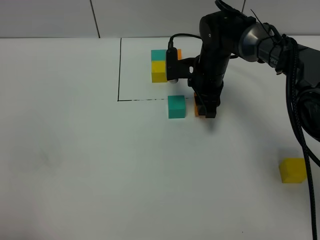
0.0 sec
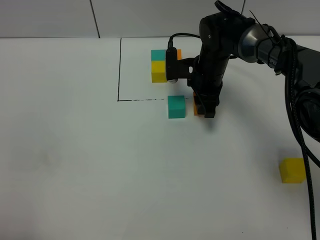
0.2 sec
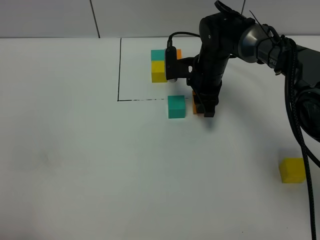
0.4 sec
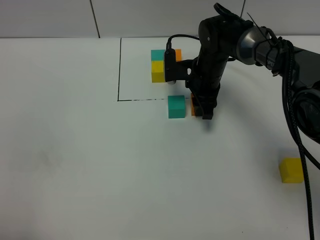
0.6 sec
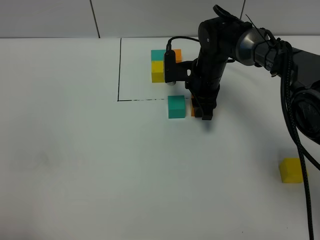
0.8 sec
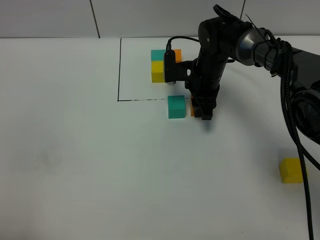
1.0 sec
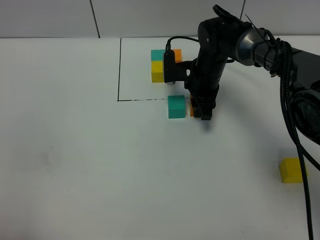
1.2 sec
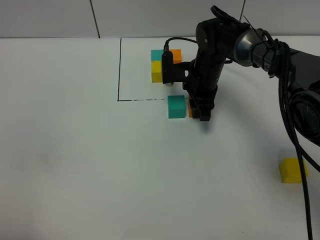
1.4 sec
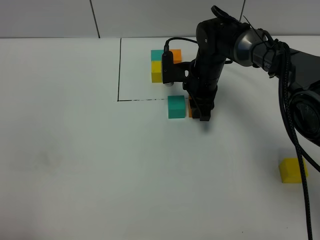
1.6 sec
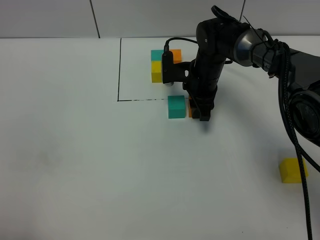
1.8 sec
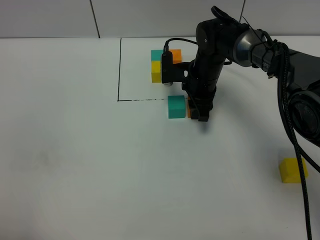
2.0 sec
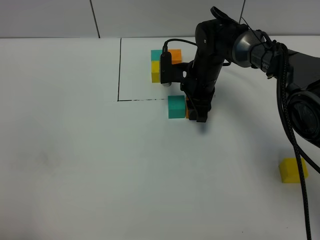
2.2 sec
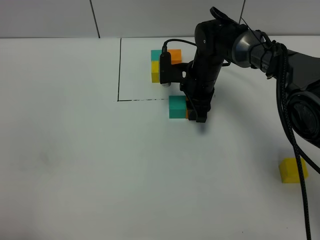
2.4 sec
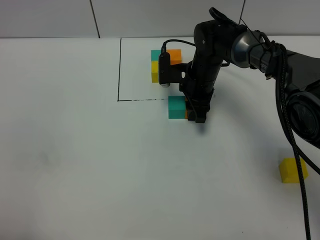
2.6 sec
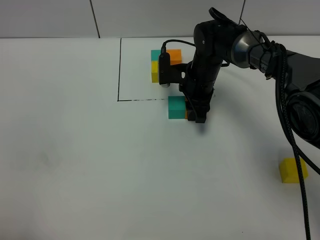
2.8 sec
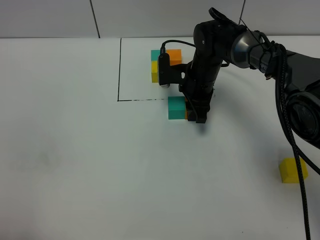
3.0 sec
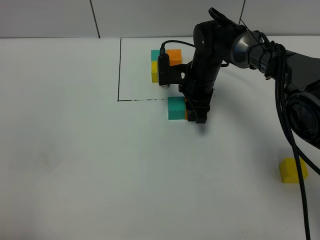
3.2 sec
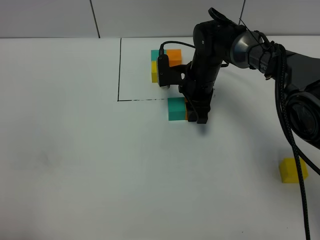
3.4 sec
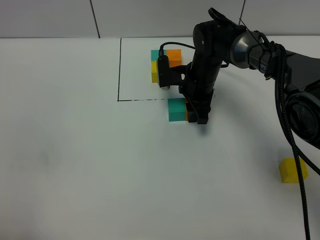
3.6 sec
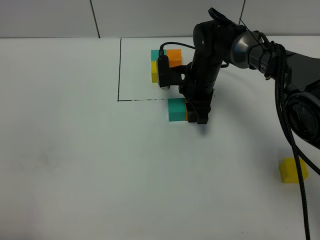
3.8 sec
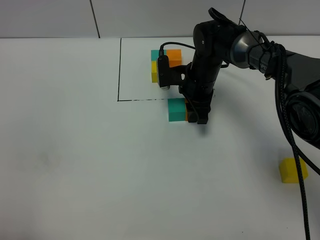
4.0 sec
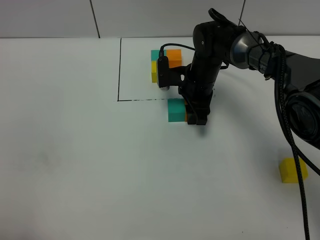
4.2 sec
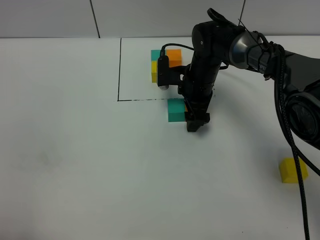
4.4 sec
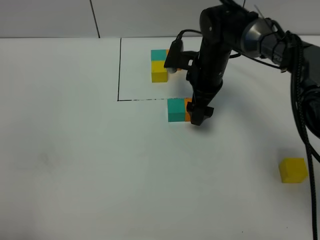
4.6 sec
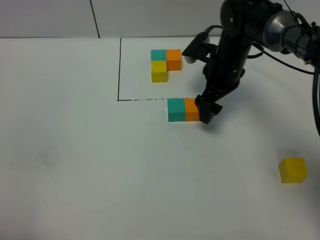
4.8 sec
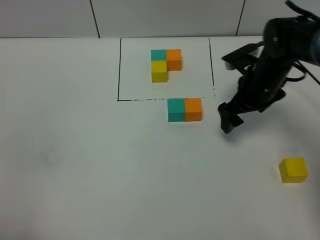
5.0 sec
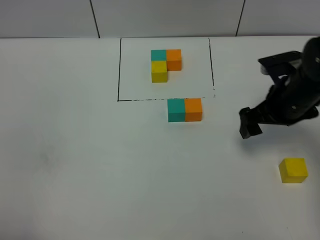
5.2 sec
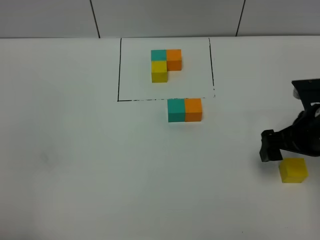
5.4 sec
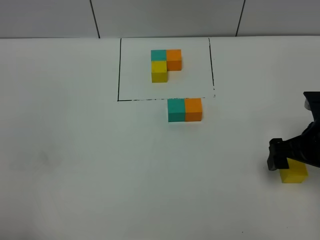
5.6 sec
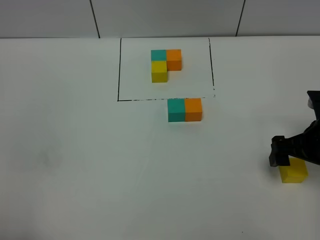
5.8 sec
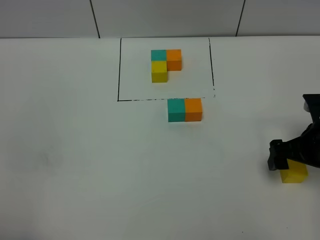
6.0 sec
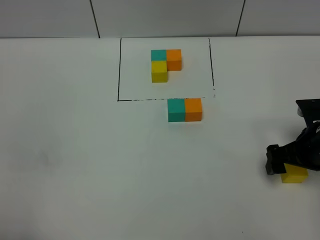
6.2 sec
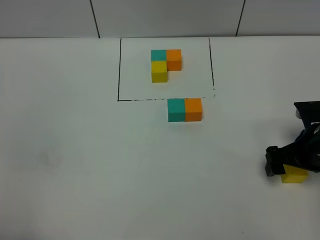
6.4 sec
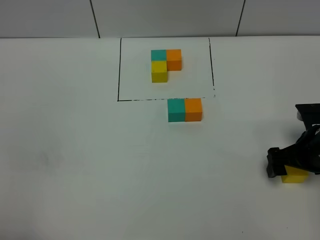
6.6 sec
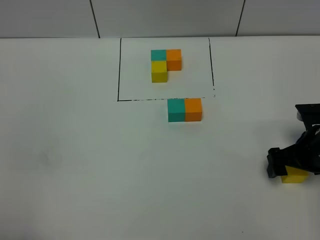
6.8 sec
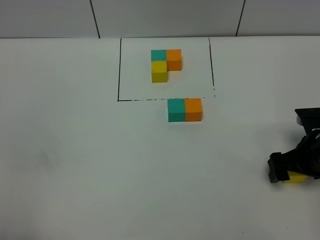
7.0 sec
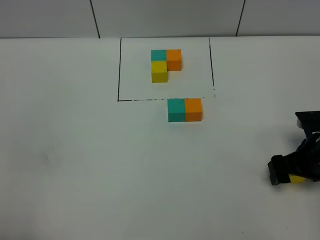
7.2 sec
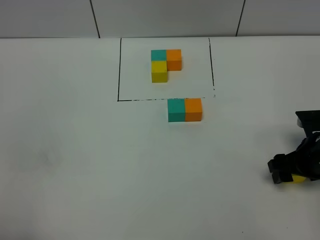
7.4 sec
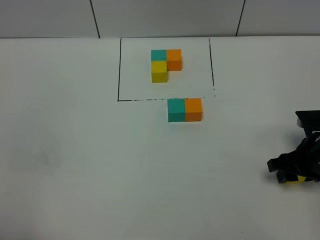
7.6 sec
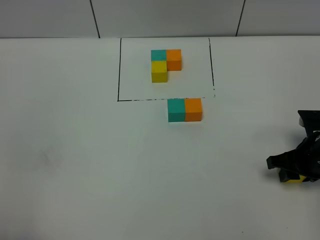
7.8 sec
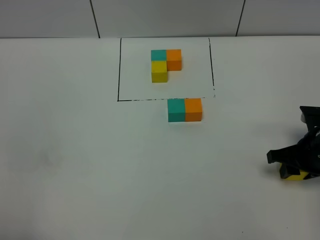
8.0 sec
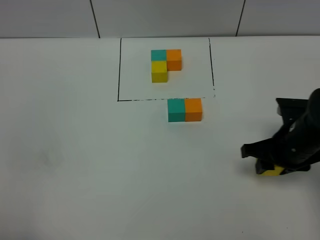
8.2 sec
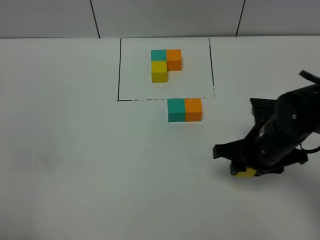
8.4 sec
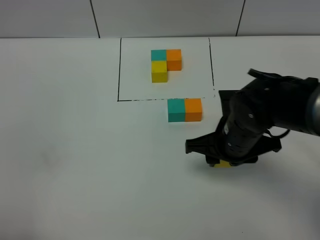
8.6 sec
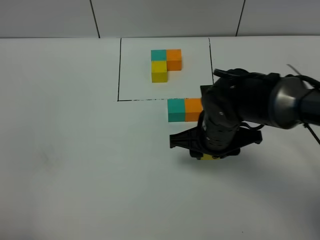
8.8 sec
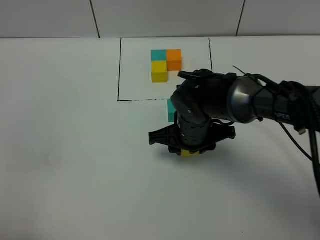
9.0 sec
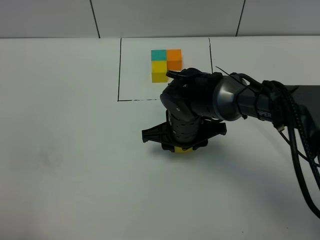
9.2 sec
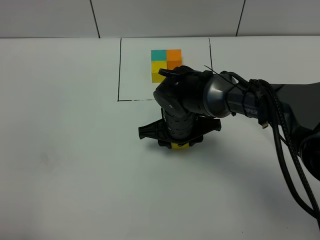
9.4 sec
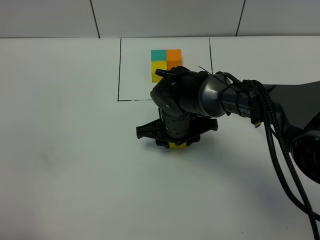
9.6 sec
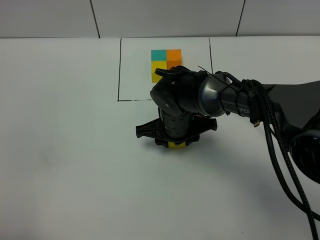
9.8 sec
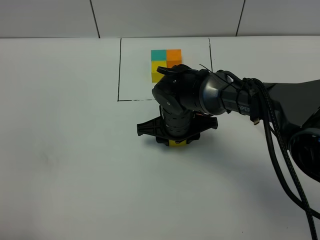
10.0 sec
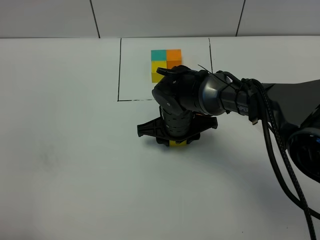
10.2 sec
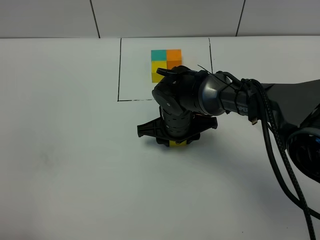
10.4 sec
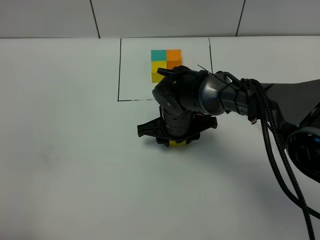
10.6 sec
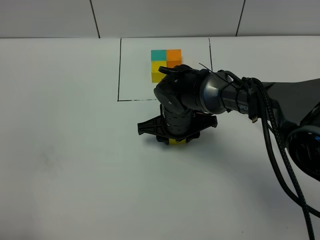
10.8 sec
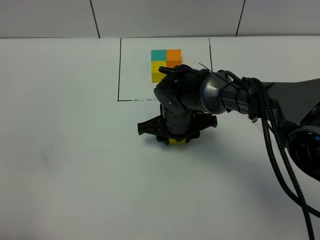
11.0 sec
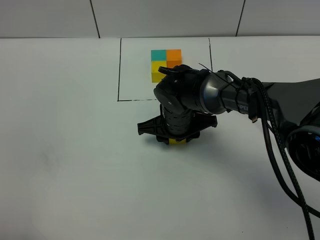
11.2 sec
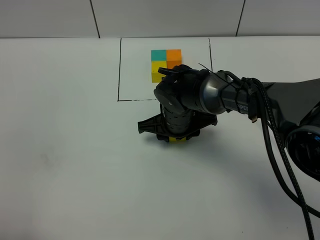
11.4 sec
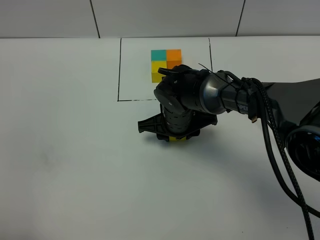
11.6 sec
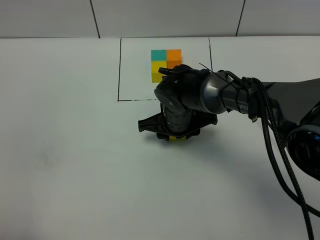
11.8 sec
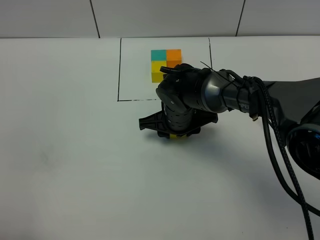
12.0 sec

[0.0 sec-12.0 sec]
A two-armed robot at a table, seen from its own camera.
Task of the whole recording: According to the building block template in front, assemble the scattered blocks together.
Step, 0.0 sec to 4.2 sec: Put the orange build block on the right of the green build block.
0.0 sec to 1.6 sec: The grippers make only small movements.
1.6 sec to 3.0 sec: Both grippers stay about where they are.
3.0 sec to 4.4 sec: The right gripper opens.
4.4 sec to 6.0 sec: The right gripper travels to the right and backward by about 25 cm.
6.0 sec to 7.6 sec: The right gripper closes.
7.6 sec to 9.0 sec: The right gripper travels to the left by about 25 cm.
9.0 sec to 10.4 sec: There are only small adjustments of the grippers.
10.4 sec to 12.0 sec: Both grippers stay about where they are.

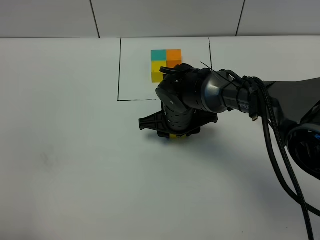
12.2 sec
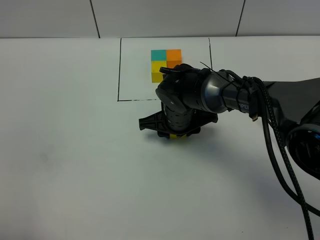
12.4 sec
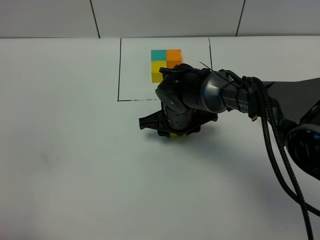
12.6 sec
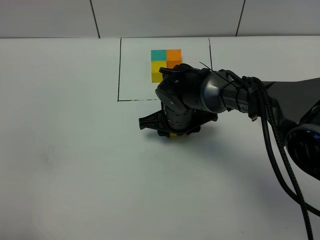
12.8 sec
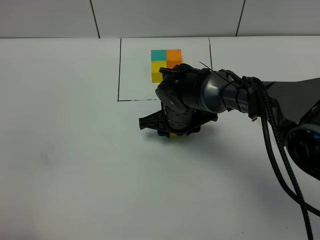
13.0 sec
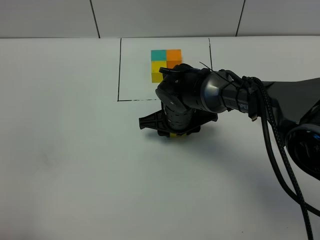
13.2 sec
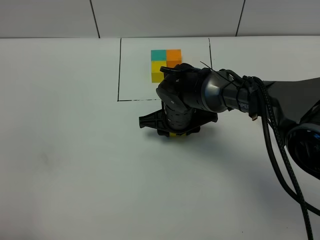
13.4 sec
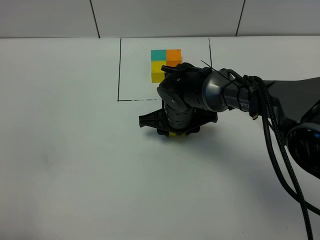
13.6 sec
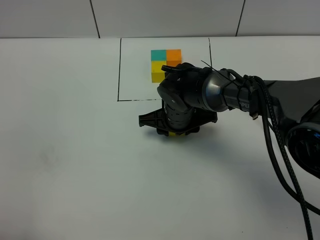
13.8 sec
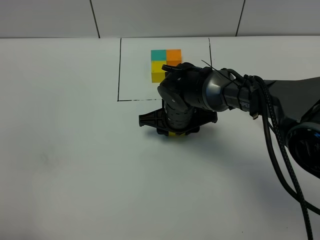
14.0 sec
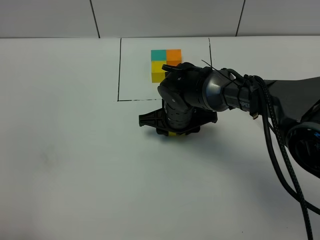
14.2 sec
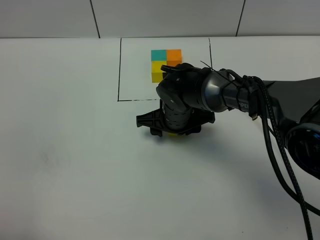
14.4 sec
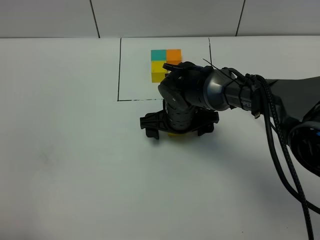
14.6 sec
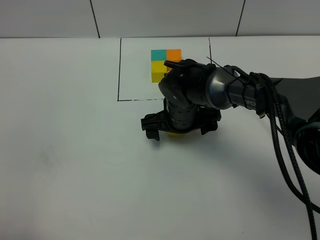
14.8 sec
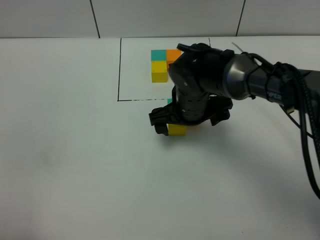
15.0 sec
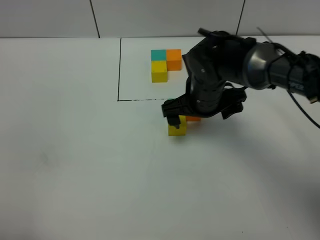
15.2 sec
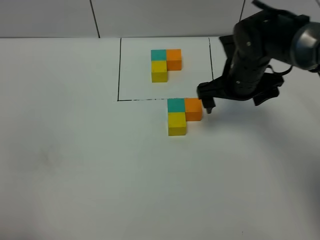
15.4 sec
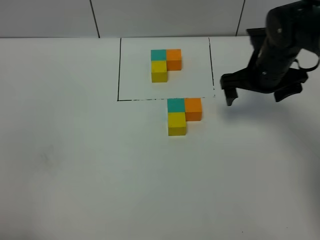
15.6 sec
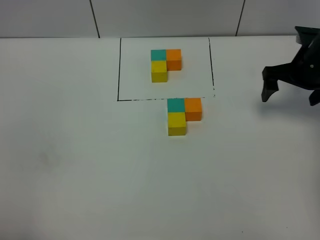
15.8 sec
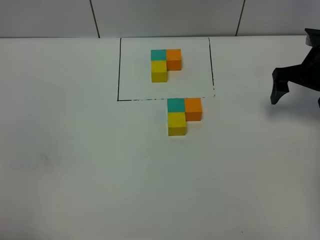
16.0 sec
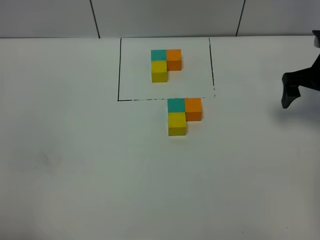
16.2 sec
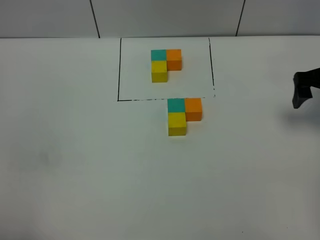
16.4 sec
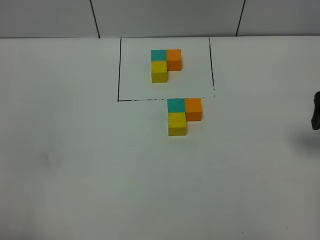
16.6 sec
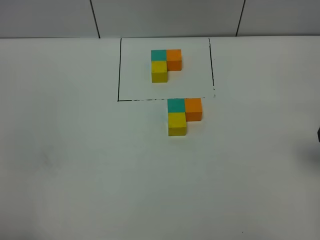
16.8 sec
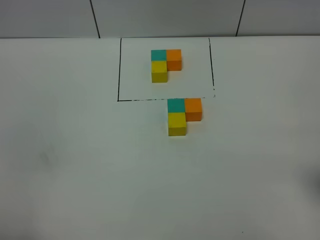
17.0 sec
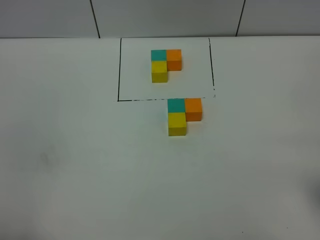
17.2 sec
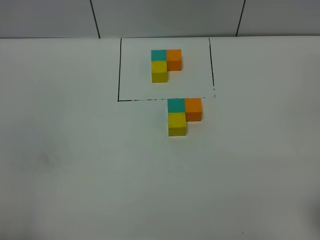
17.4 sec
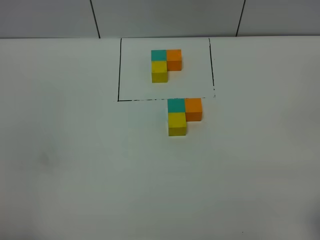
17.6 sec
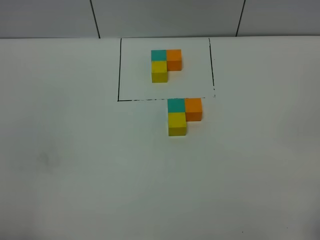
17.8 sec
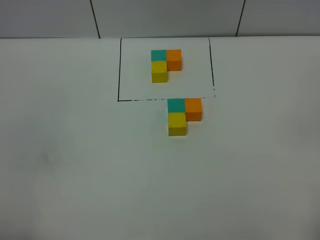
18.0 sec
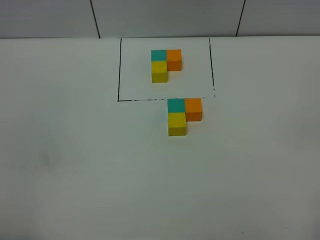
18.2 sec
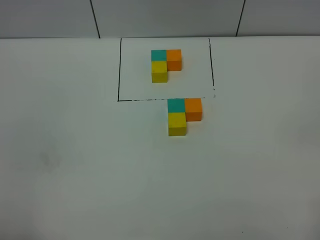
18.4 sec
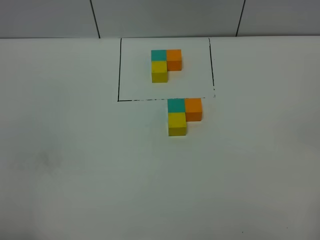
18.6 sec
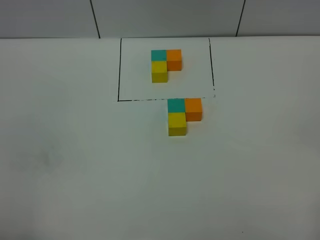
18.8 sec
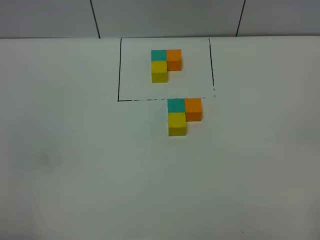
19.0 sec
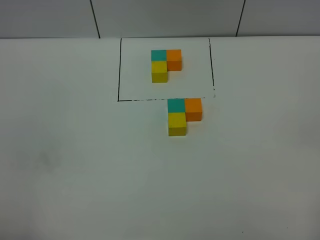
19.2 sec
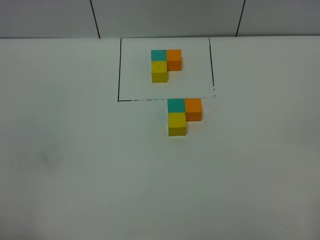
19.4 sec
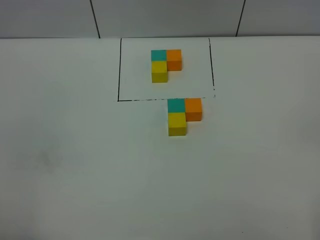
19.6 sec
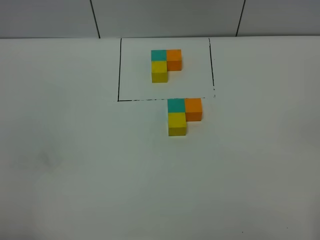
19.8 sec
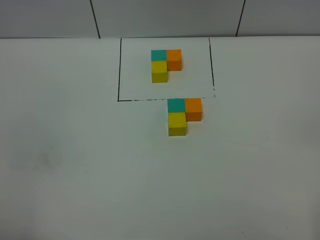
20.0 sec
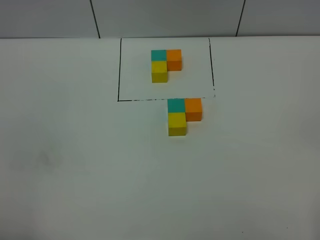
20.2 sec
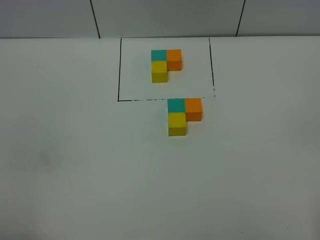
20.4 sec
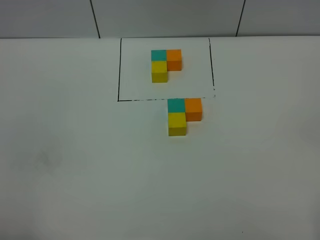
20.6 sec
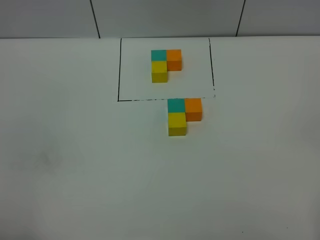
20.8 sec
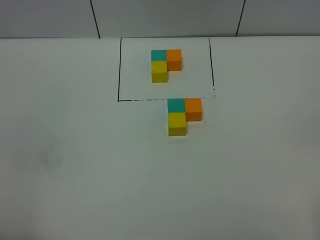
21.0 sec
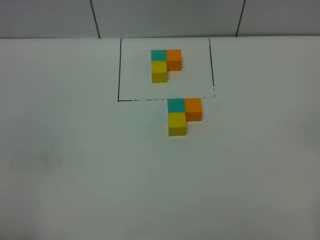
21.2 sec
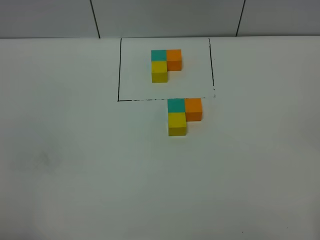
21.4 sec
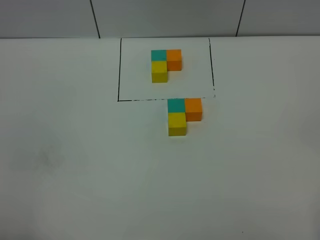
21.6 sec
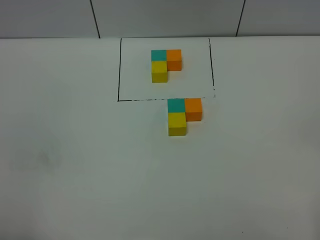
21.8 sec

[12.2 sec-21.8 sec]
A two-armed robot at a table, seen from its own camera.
Task of the whole recording: According to the building block template in front, assemble the scattered blocks together.
Step, 12.2 sec to 14.4 sec: Put the yellow build block on the behind of the green build block.
12.2 sec to 13.8 sec: Neither gripper changes place.
13.8 sec to 15.4 sec: The right gripper moves to the right and upward, approximately 15 cm, and opens its fingers.
15.4 sec to 17.0 sec: The right gripper goes approximately 25 cm backward and to the right.
20.2 sec to 21.8 sec: Neither gripper changes place.

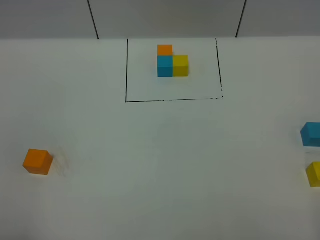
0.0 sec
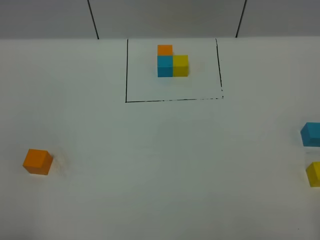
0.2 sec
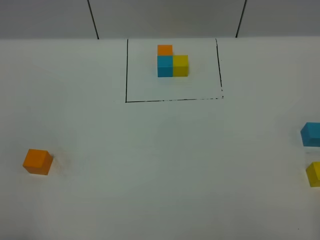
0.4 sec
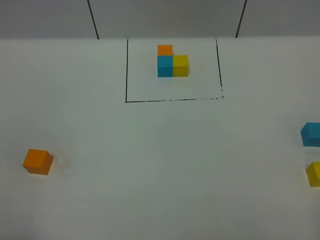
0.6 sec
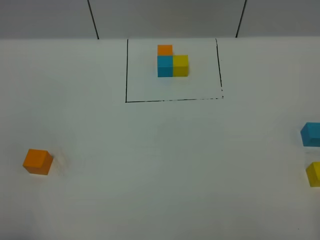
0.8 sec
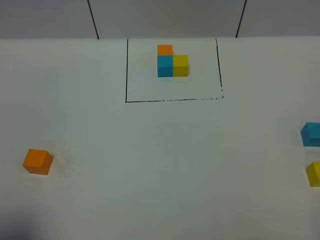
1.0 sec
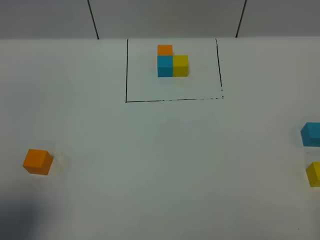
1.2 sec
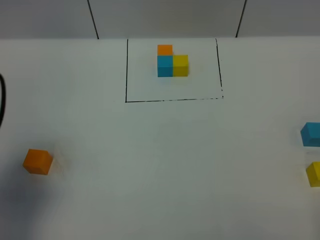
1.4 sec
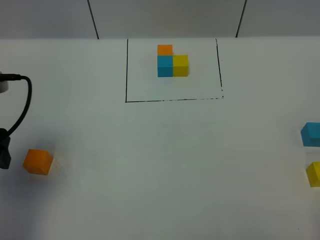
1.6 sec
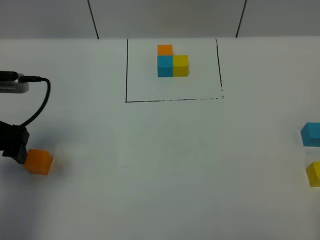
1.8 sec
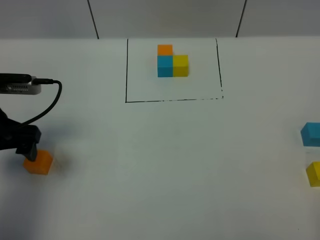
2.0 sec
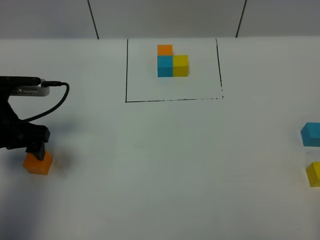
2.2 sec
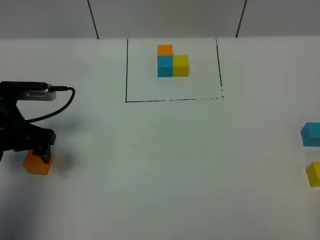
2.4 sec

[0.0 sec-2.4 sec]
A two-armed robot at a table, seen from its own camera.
Task of the whole recording: According to the building block template in front, assemble the scattered blocks together.
0.0 sec to 1.2 sec: The left gripper shifts about 10 cm forward and upward.
1.2 sec to 2.4 sec: The left gripper moves forward and downward, about 25 cm.
